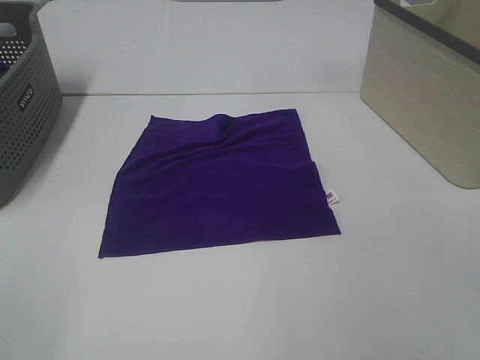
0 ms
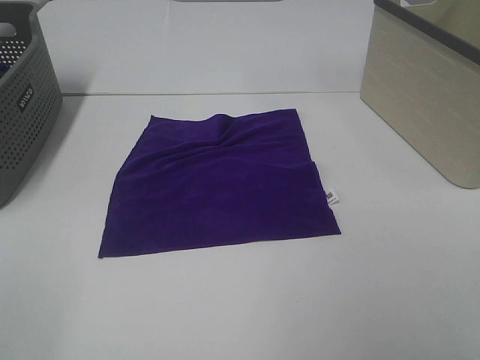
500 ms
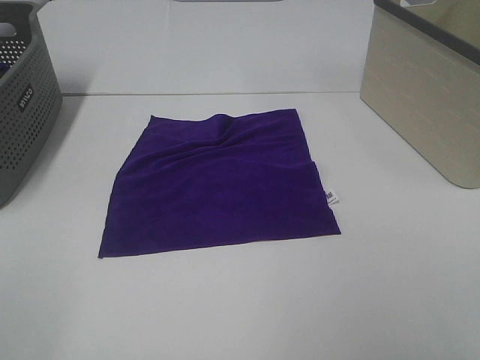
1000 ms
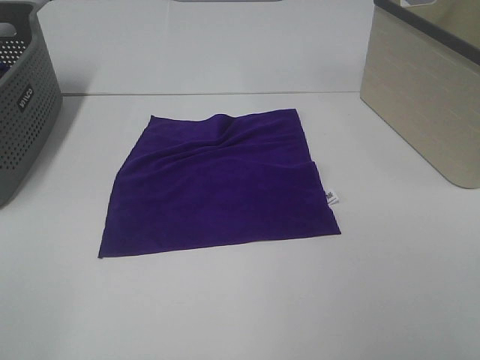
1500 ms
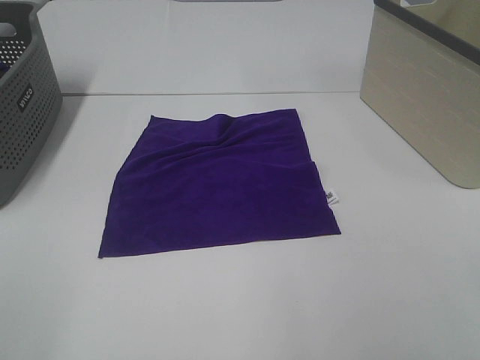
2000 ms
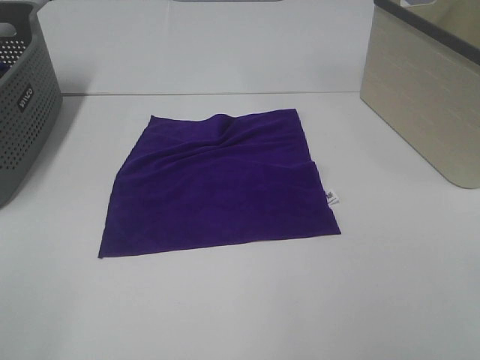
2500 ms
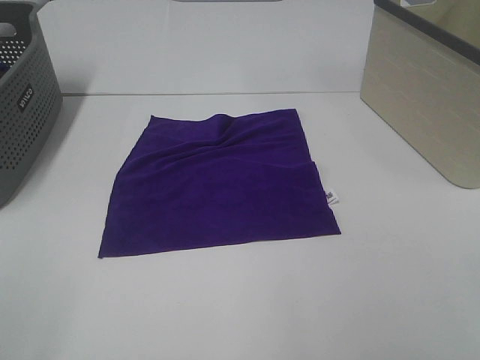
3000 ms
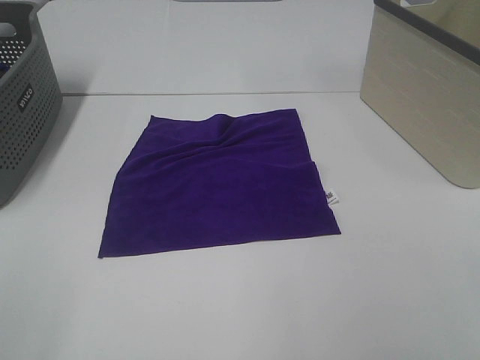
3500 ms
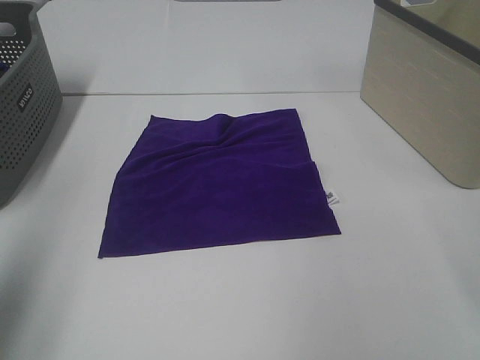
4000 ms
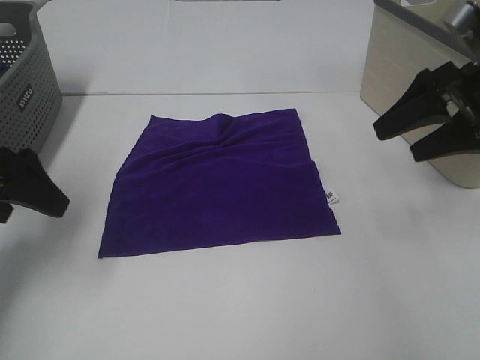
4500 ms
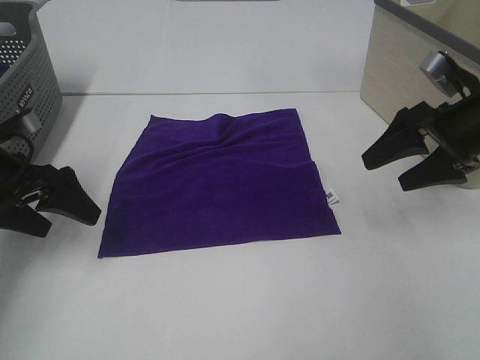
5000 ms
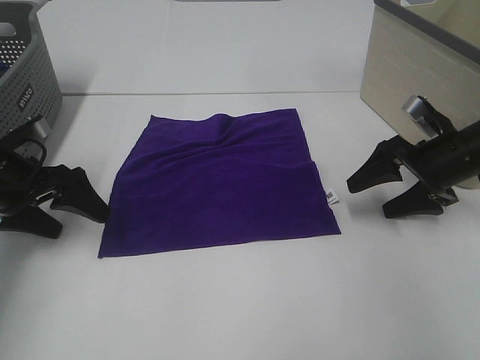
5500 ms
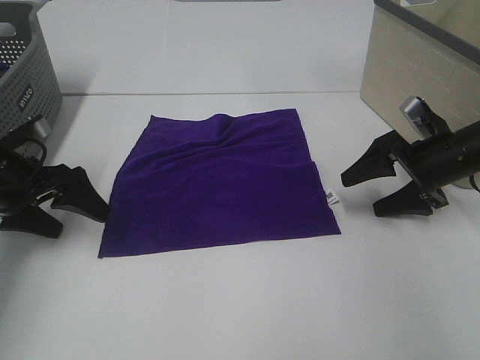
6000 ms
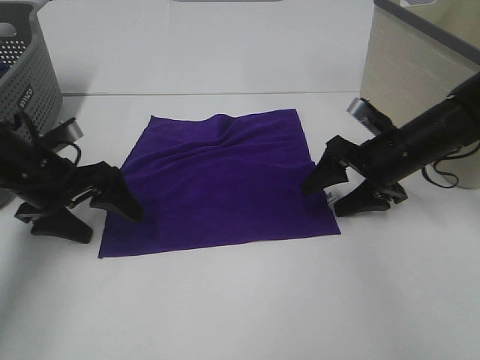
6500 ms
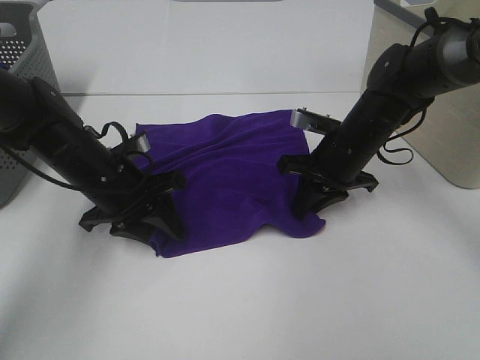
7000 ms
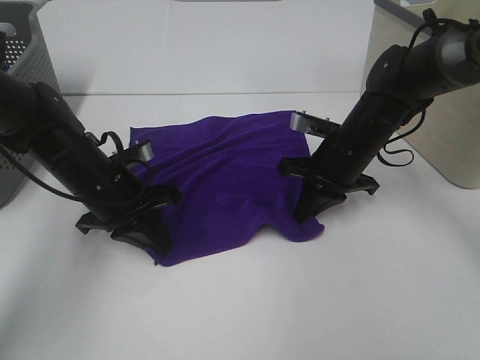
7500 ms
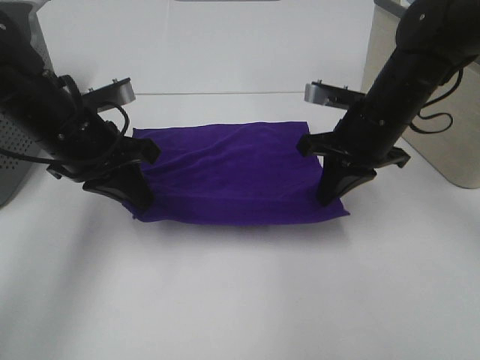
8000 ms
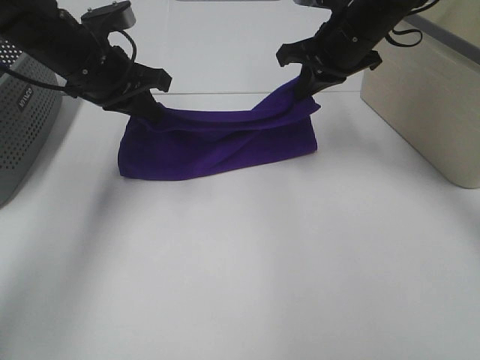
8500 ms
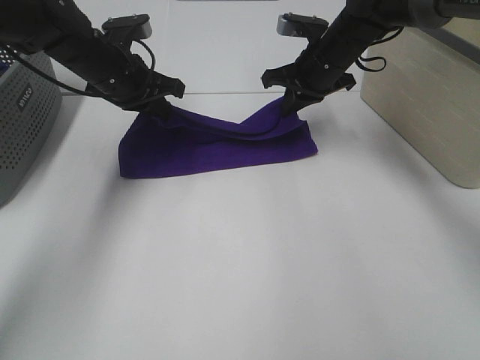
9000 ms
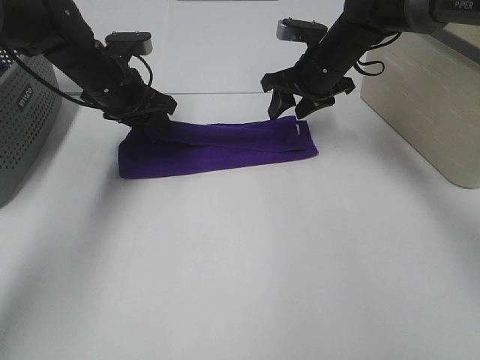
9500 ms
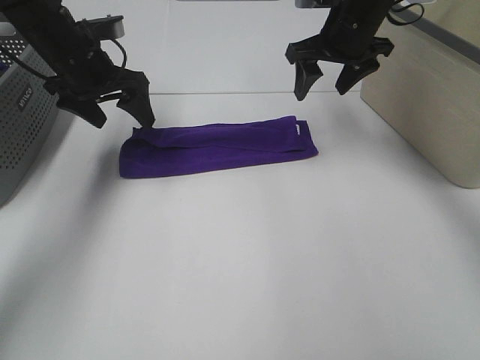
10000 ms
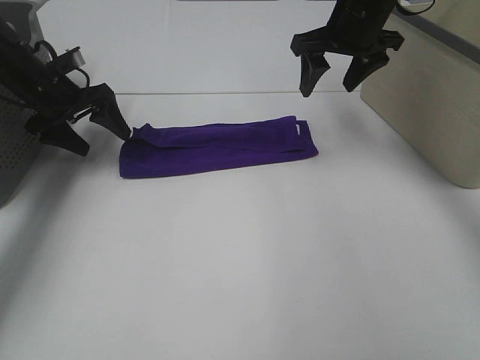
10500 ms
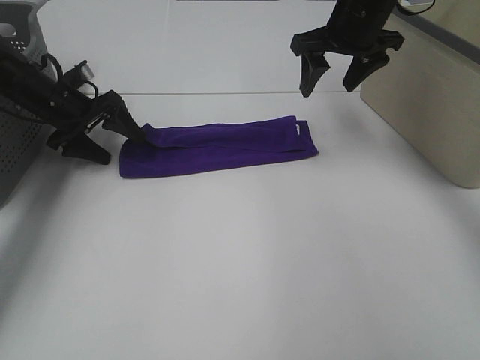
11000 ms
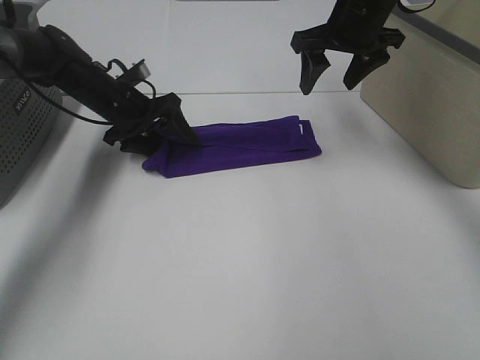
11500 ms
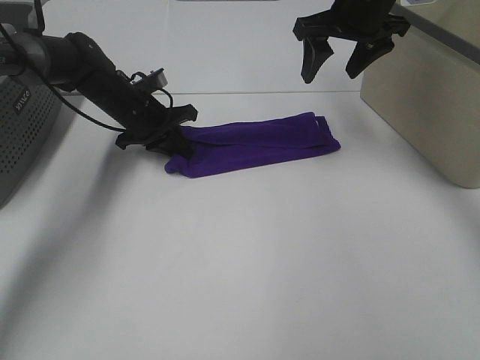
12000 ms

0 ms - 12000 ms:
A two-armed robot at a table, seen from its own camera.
Task of the whole recording: Fold towels.
Step, 0 ms - 7500 ms: Left hand: grab the bottom left corner of purple towel.
Step, 0 ms - 7500 ms: Right hand: grab the bottom right corner of purple towel.
Step, 8000 ms - 9000 ms: Left hand: fold the purple towel up.
Step, 8000 ms - 9000 ms: Right hand: fold the purple towel up.
0 ms - 2000 ms: The two grippers keep their place.
2000 ms - 4000 ms: The left gripper is displaced forward by approximately 15 cm.
4000 ms - 6000 ms: The grippers both shift downward and forward by some 25 cm.
6000 ms - 8000 ms: The right gripper heads to the left and upward, covering some 15 cm, and closes up; the left gripper travels to the right and upward by about 15 cm, and closes up.
8000 ms - 10000 ms: The left gripper is displaced forward by some 15 cm, and opens its fingers, while the right gripper shifts some 15 cm forward and upward, and opens up.
10000 ms - 12000 ms: The left gripper is displaced downward by some 10 cm, and closes.

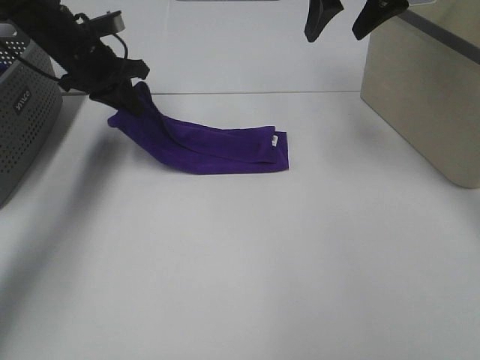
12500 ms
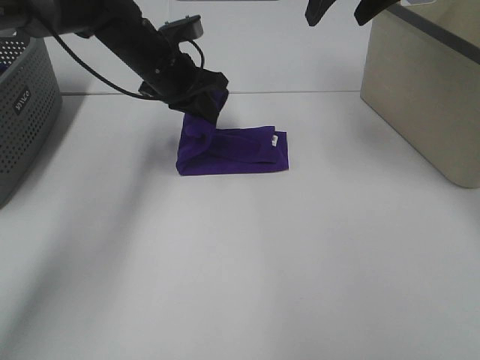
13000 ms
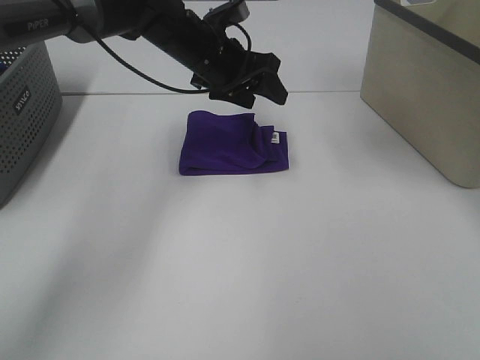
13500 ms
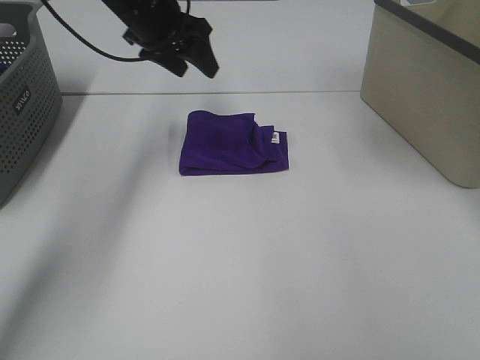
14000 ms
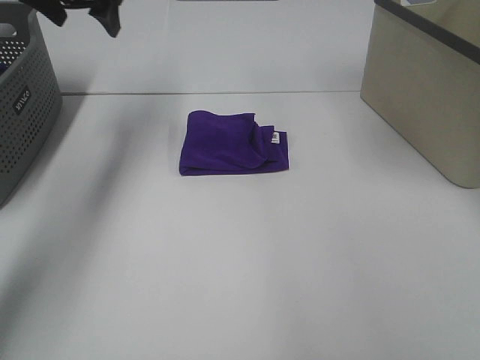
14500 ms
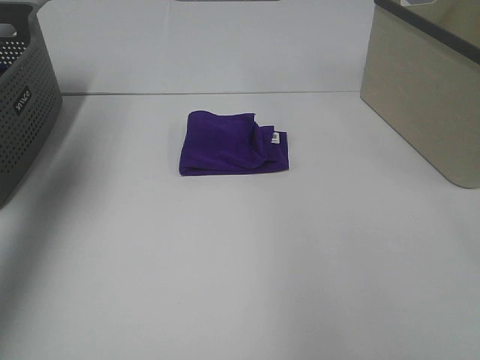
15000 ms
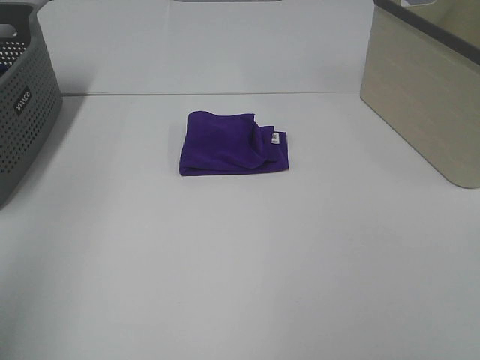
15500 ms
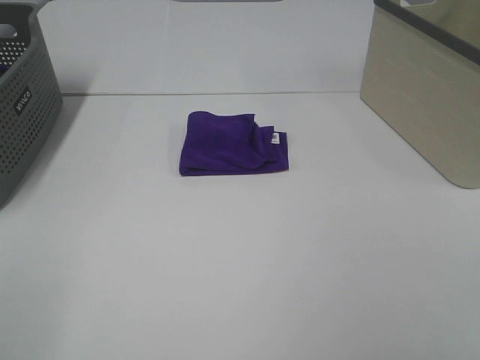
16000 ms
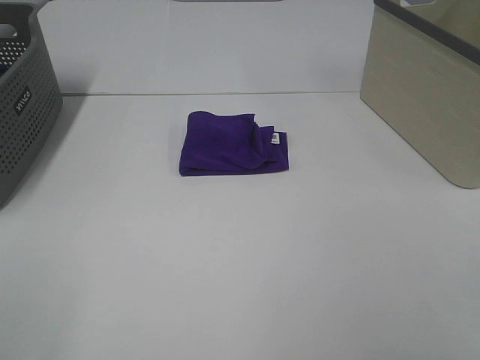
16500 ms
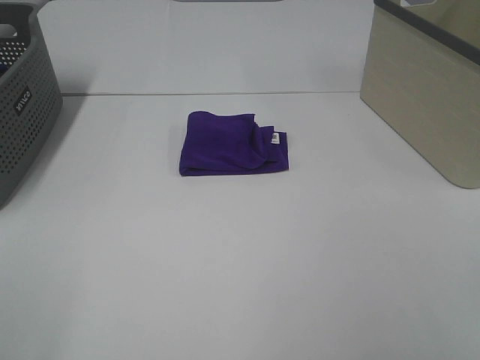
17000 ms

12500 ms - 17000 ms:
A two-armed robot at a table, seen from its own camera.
Task of the whole recording: Fold towels.
12500 ms - 14500 ms: The left gripper shifts roughly 10 cm upward, reaches some 15 cm to the right, then returns, and opens up. The right gripper moves upward, approximately 5 cm.
14500 ms - 17000 ms: The left gripper travels backward by some 50 cm.
